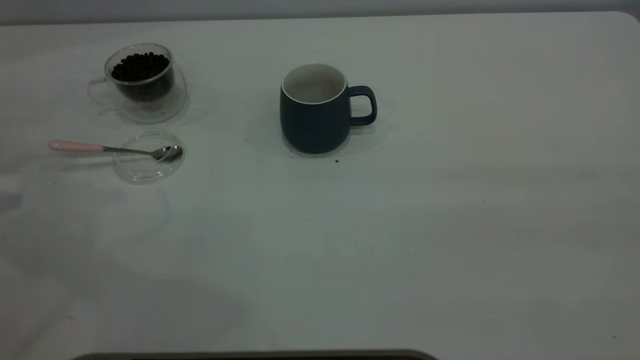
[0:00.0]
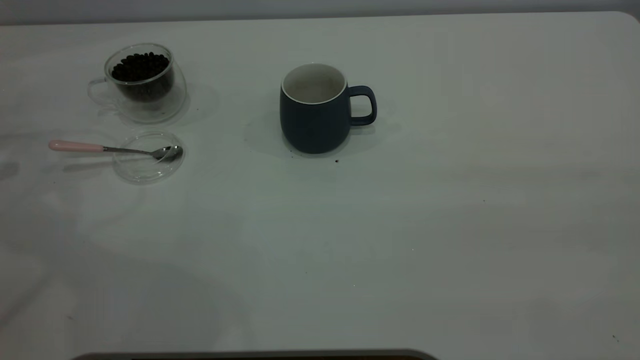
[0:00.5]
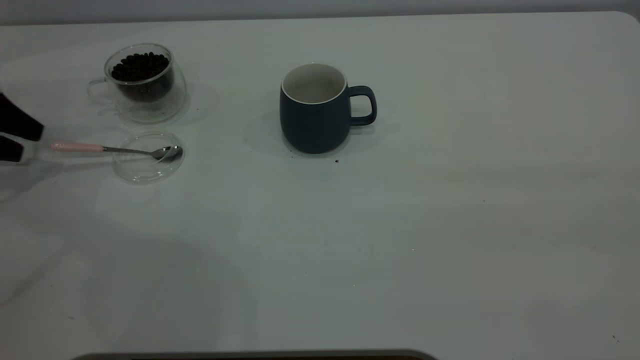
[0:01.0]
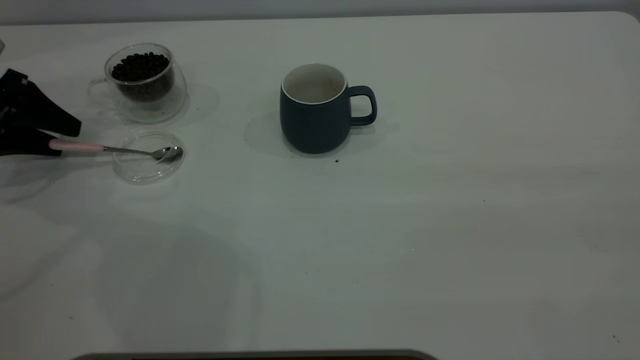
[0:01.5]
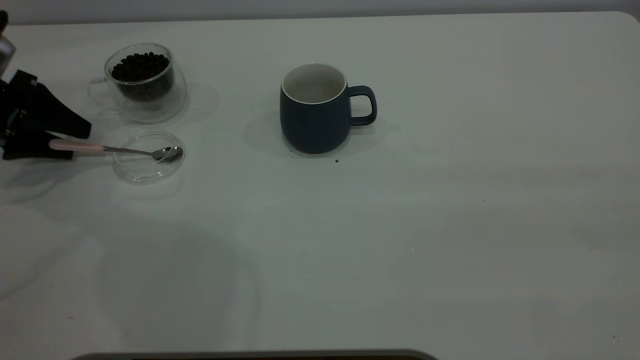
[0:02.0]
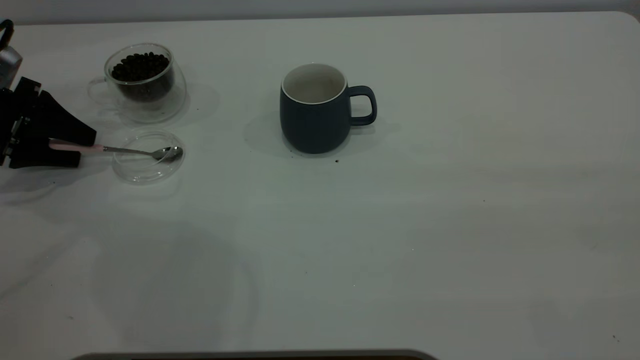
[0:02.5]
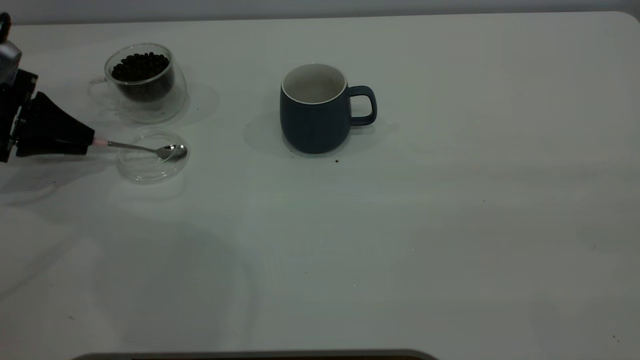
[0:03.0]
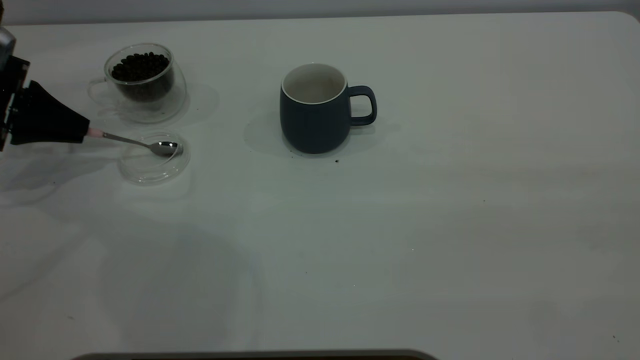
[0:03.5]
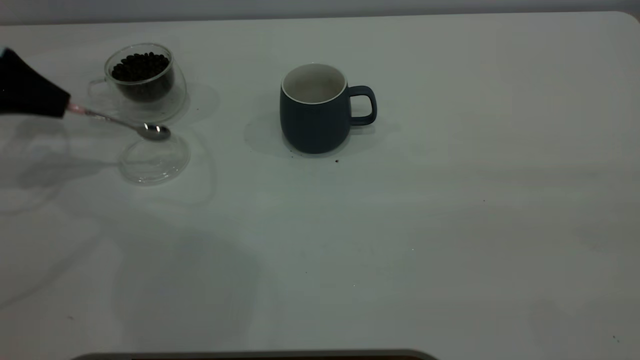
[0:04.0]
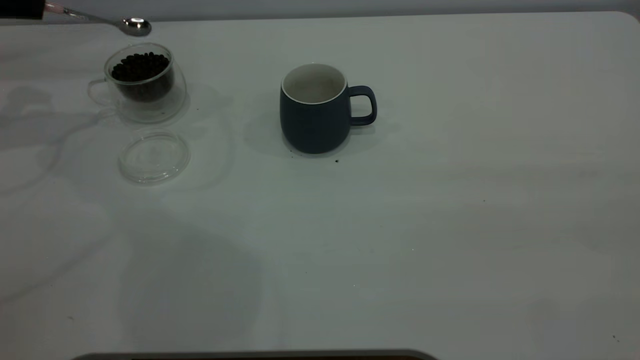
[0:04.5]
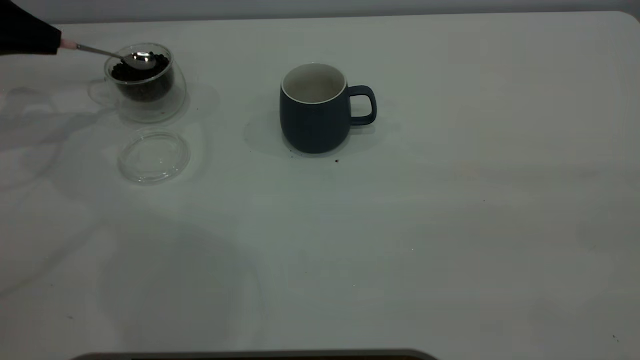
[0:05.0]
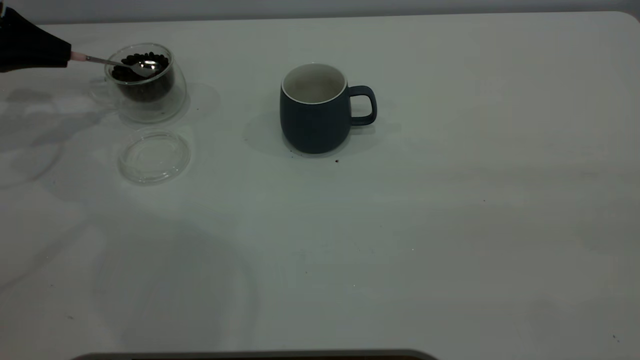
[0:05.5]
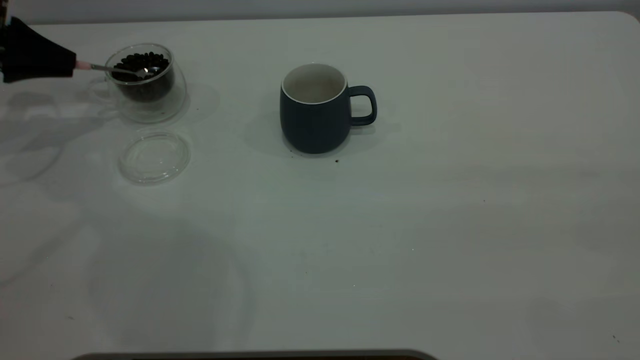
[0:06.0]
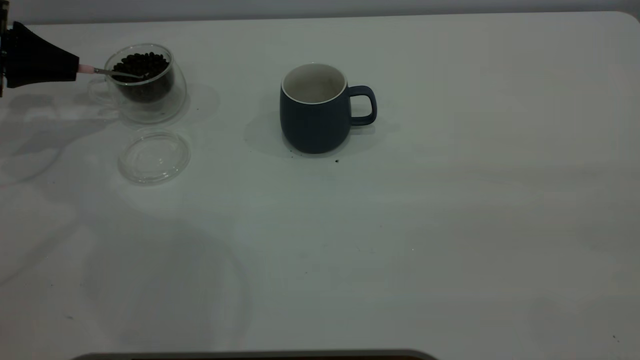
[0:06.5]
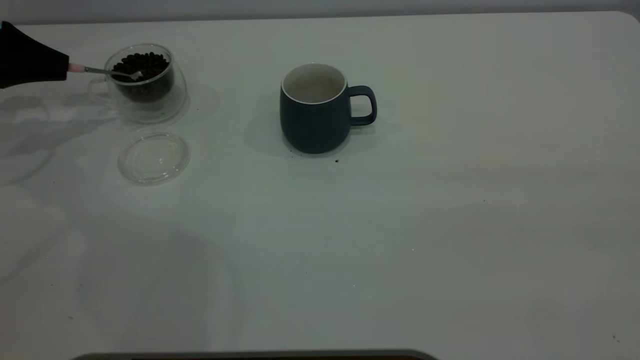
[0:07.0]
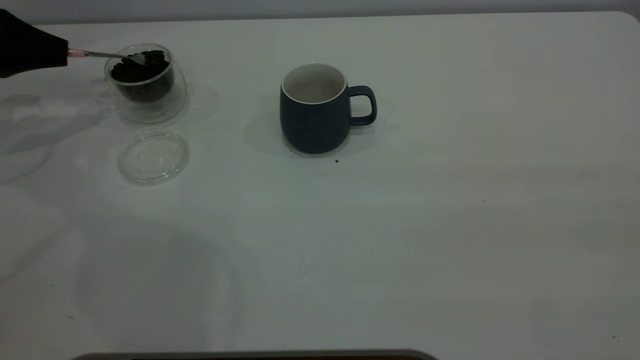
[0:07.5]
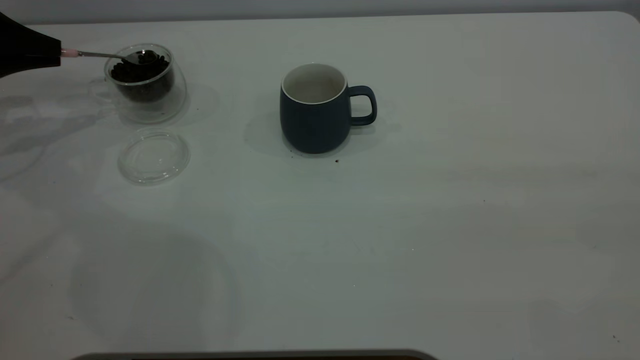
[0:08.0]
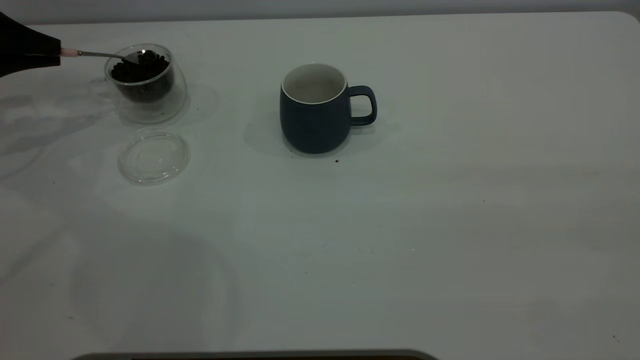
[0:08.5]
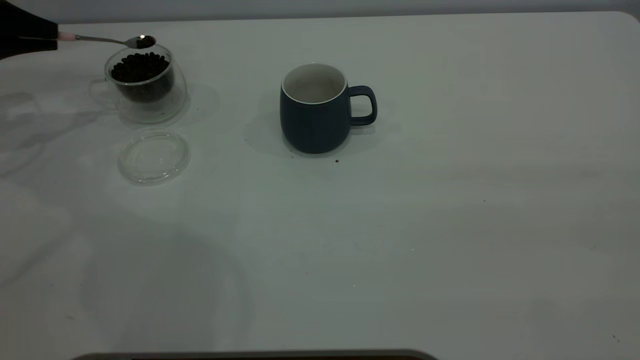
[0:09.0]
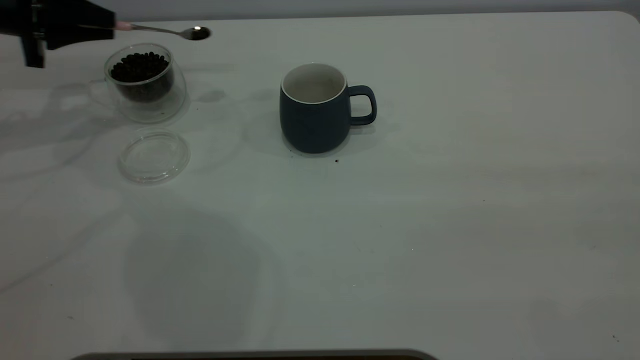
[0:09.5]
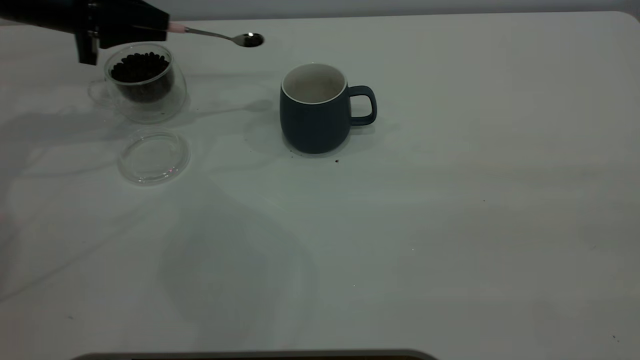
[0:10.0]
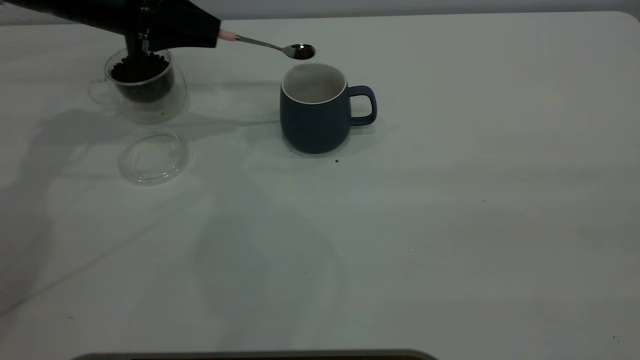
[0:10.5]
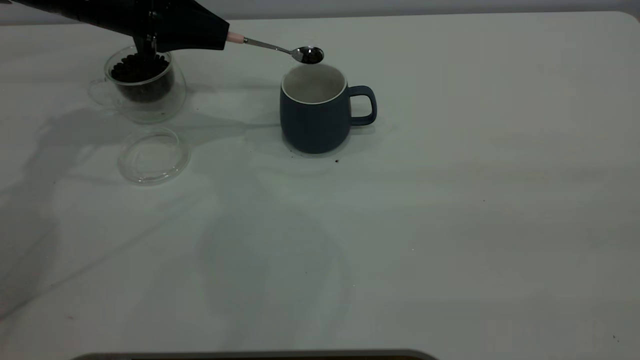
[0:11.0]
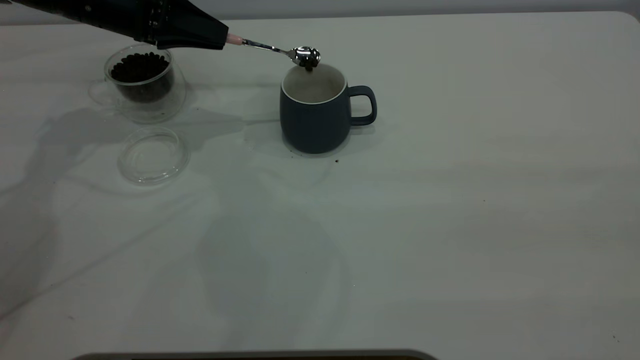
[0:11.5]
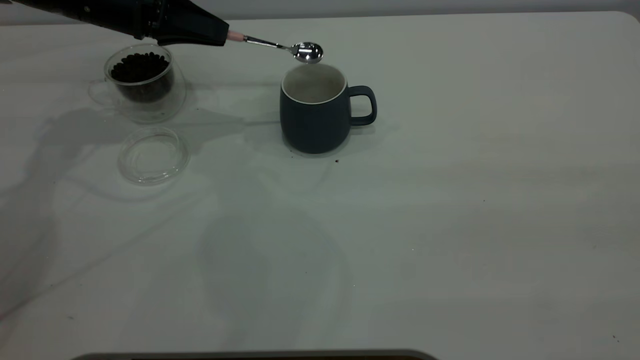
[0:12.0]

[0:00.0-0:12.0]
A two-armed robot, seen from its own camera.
Task of the whole recording: the right gripper place the grey cup in the center of the table, the left gripper take the pink spoon from the cup lid and scoop out the coffee beans from the coffee cup and put them into the grey cup, the left gripper put the spoon back into the cup lid.
Step, 0:00.0 to 0:04.0: Pick up the spoon.
0:00.0 to 0:02.0: The left gripper shifts some 10 cm downward, forward and to the right, and opens up.
0:02.0 to 0:04.0: The left gripper shifts about 5 cm upward, and closes.
0:04.0 to 0:06.0: The left gripper travels upward and back again, roughly 5 cm each way.
0:06.0 to 0:08.0: The grippers stay close to where they were, moving slightly.
0:08.0 to 0:10.0: The left gripper moves to the right, some 15 cm.
0:10.0 to 0:12.0: The left gripper heads to the right, covering roughly 5 cm.

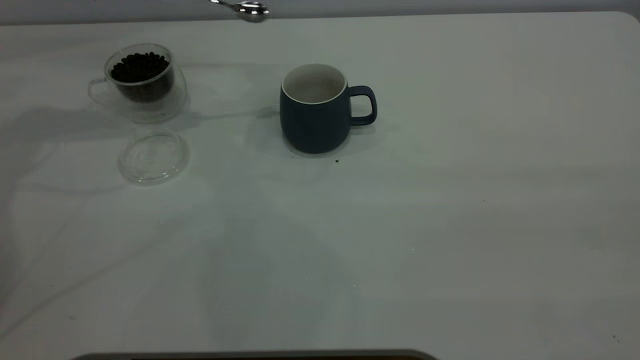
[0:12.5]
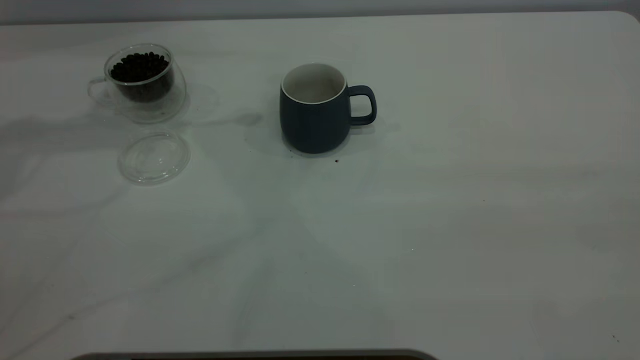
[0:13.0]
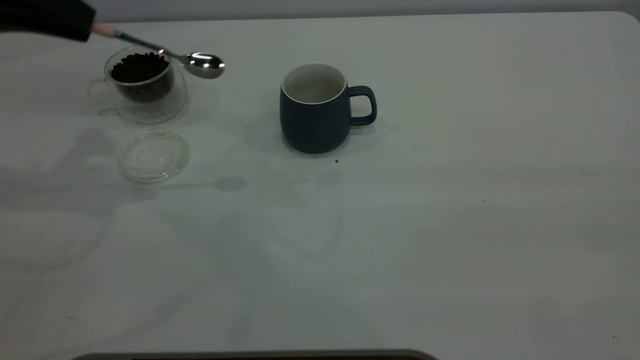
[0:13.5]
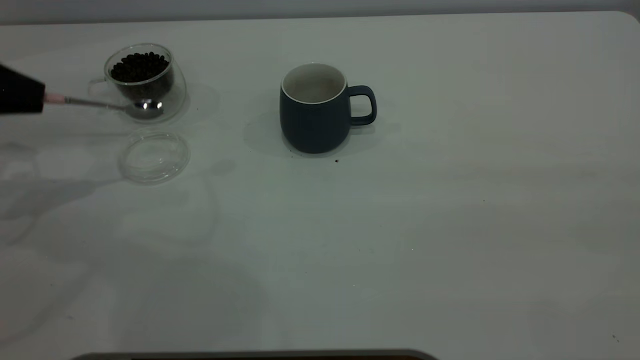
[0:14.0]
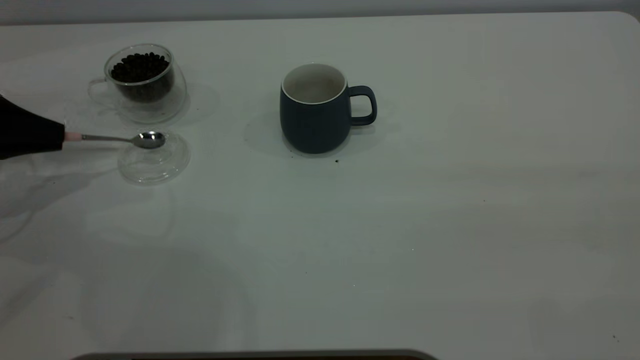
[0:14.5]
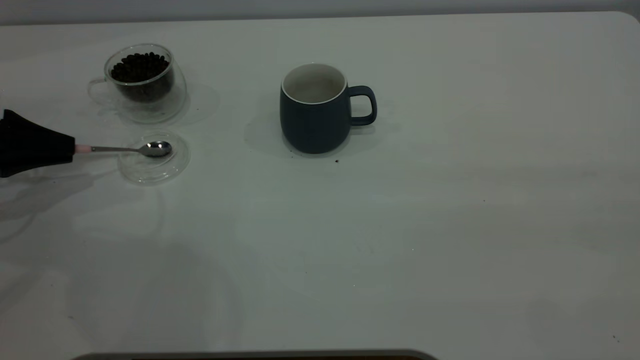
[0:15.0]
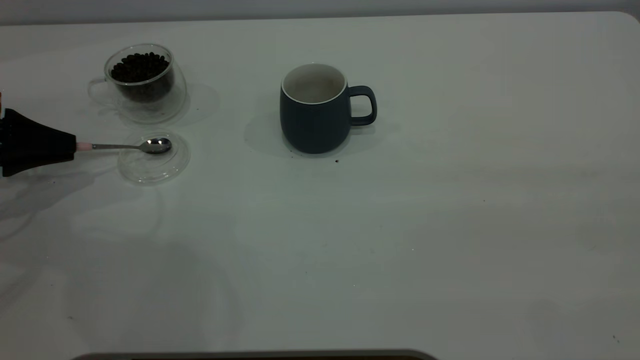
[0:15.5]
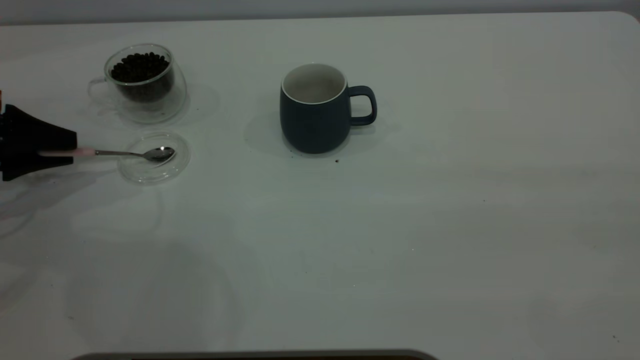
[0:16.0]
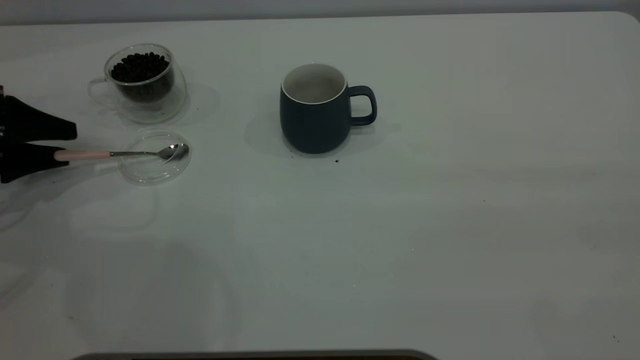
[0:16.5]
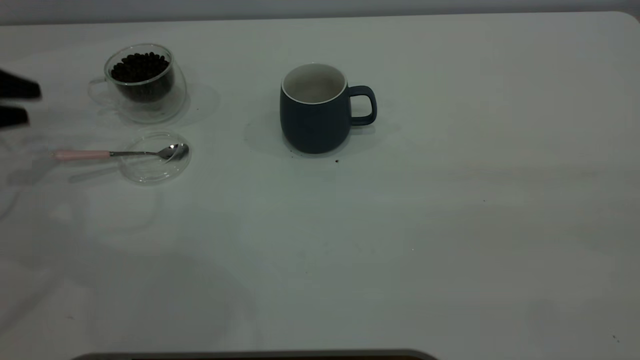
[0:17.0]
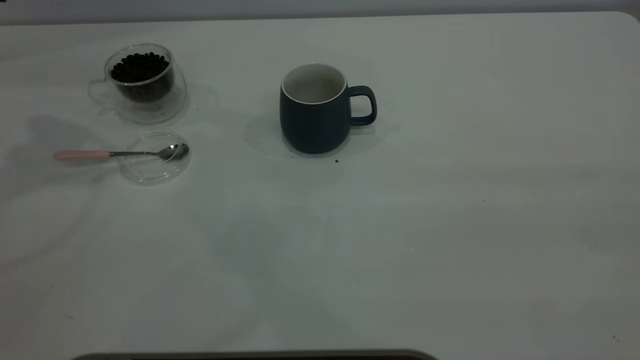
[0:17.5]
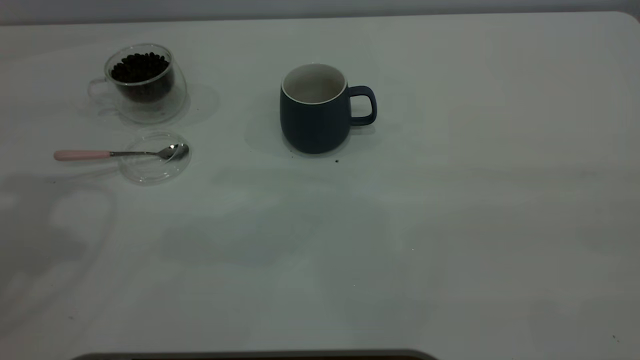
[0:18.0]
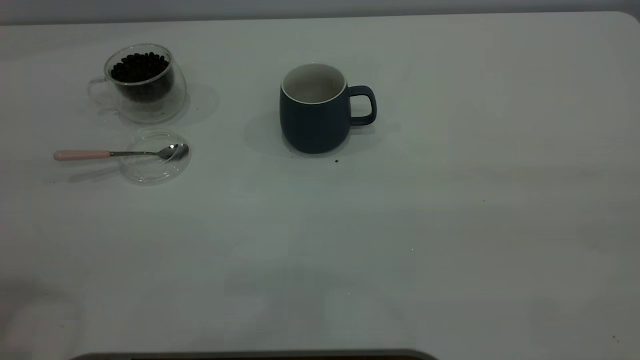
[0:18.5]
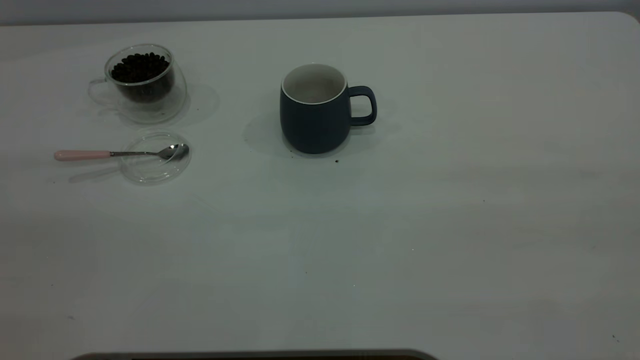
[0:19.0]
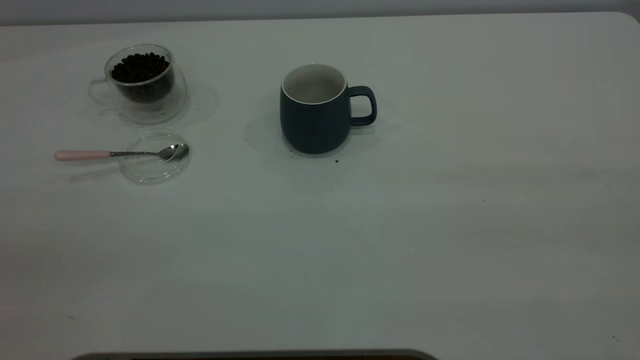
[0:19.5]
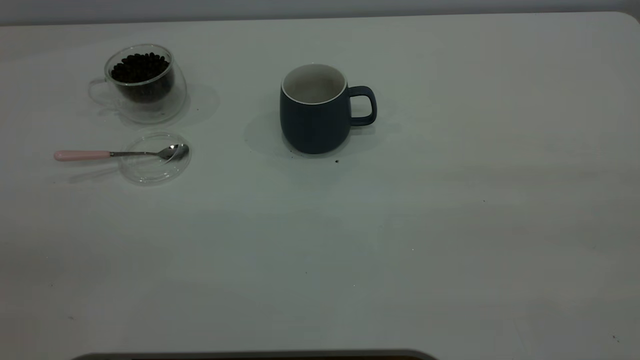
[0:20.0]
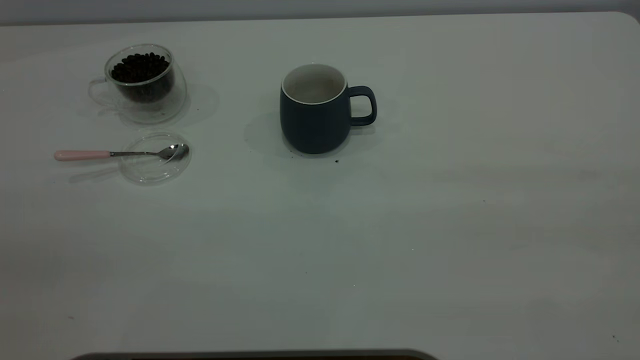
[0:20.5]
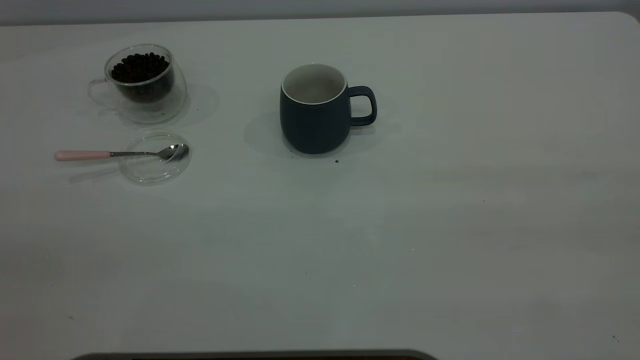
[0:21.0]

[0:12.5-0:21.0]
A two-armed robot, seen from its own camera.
Task of the whole recording: the right gripper place the grey cup in the center of the table, the left gripper take the pink spoon from the cup lid and scoop out the coffee beans from the coffee cup and put them into the grey cup, the left gripper put the spoon back into the cup lid.
Step, 0:12.5 to 0:16.5: Place the spoon back in its original place.
0:12.5 to 0:14.5: The left gripper heads downward, backward and to the left, covering about 20 cm.
0:14.5 to 0:16.5: The left gripper opens its fingers.
0:16.5 to 0:19.0: The left gripper is displaced upward, backward and to the right by roughly 40 cm.
